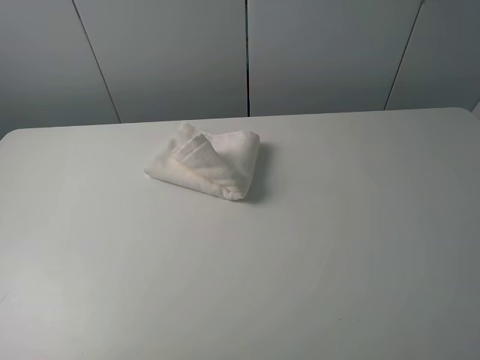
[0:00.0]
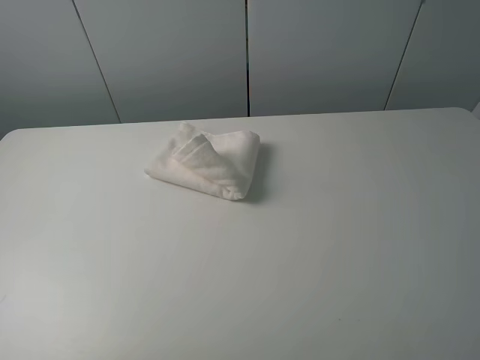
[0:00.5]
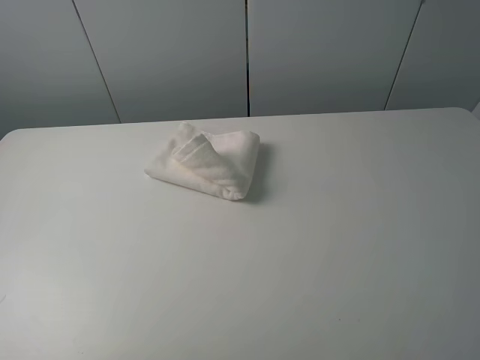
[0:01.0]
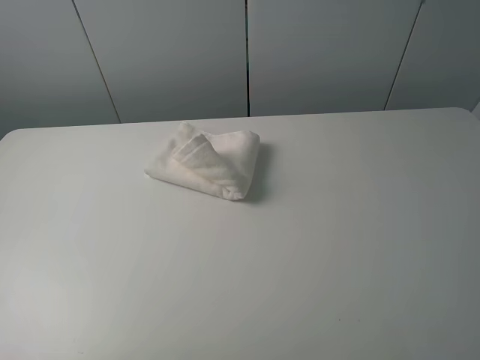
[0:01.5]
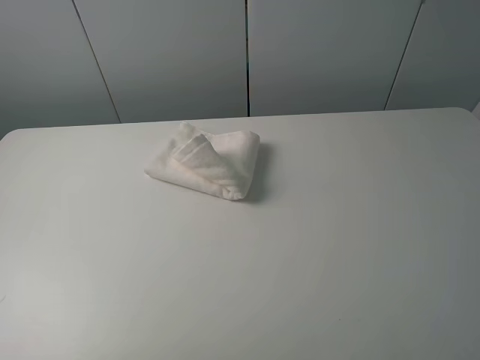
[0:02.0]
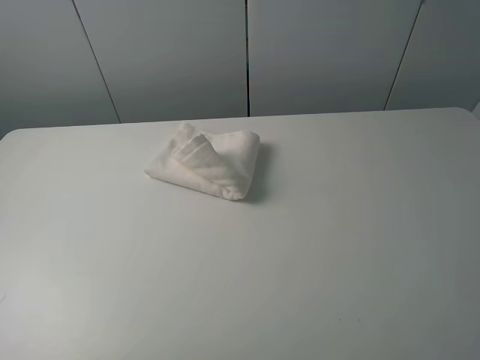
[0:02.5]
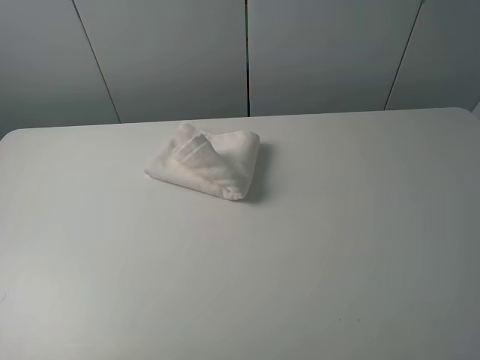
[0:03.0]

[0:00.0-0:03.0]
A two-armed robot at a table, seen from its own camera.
Task of the whole recording: fold the towels on the table.
0:01.5 to 0:03.0: Both grippers stay about where they are.
